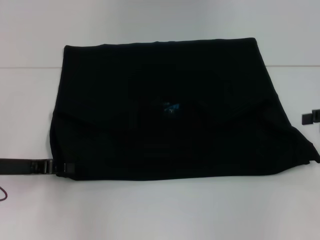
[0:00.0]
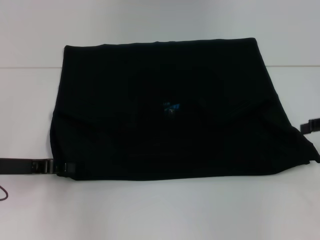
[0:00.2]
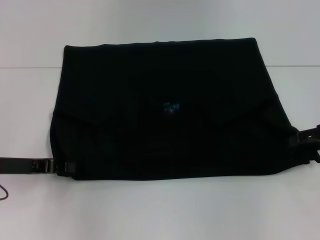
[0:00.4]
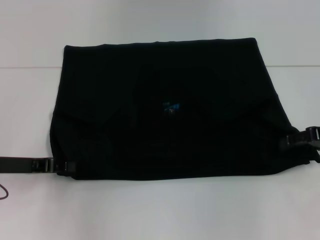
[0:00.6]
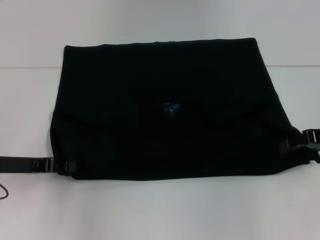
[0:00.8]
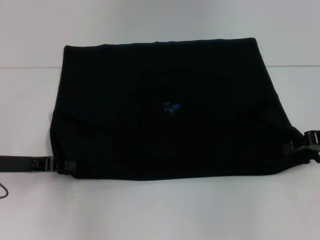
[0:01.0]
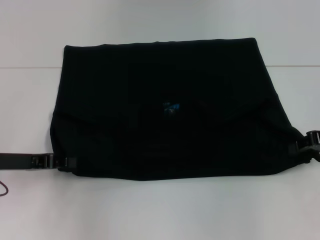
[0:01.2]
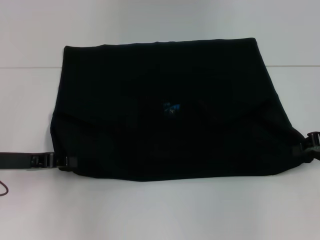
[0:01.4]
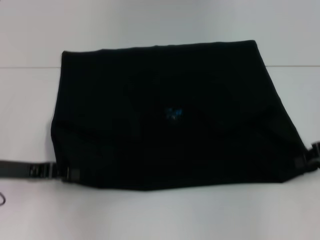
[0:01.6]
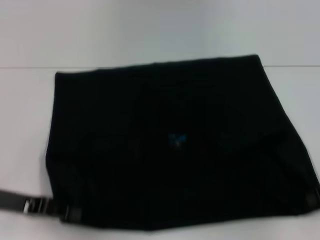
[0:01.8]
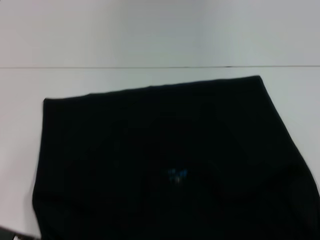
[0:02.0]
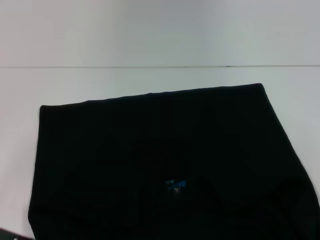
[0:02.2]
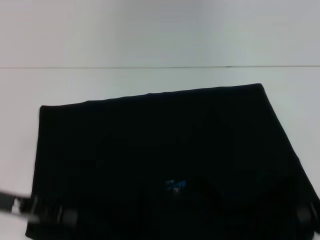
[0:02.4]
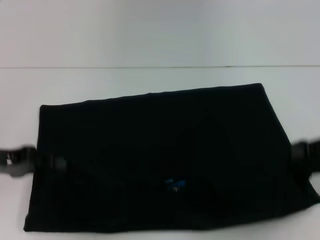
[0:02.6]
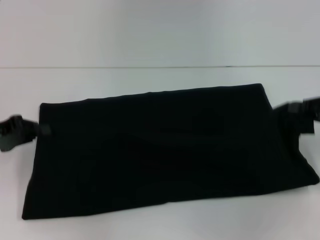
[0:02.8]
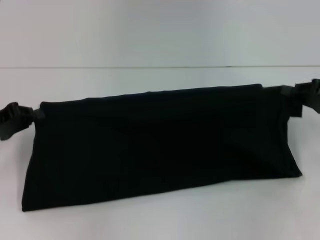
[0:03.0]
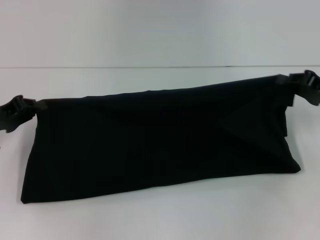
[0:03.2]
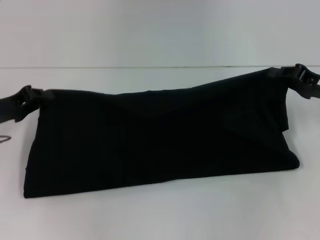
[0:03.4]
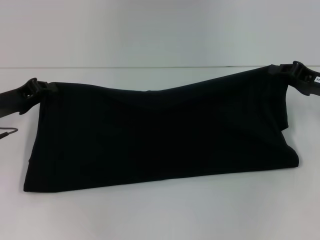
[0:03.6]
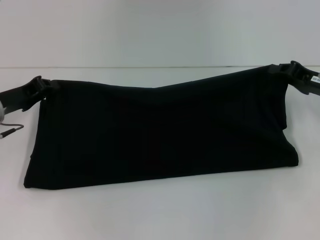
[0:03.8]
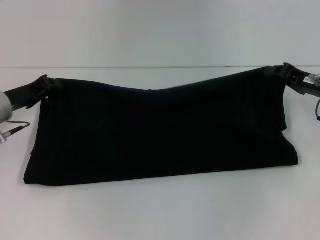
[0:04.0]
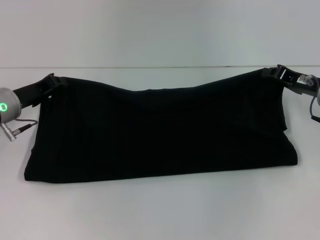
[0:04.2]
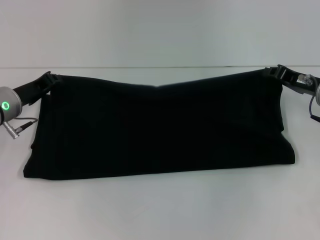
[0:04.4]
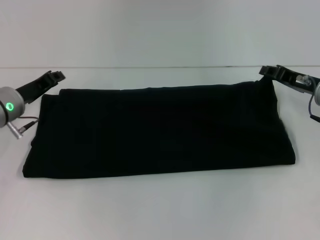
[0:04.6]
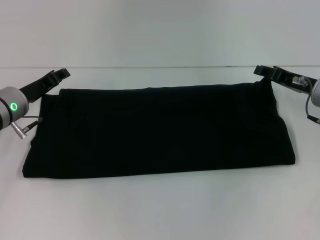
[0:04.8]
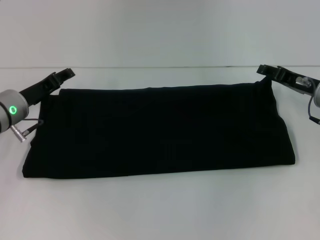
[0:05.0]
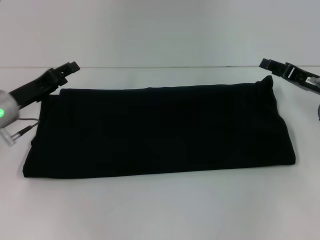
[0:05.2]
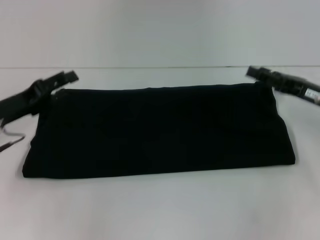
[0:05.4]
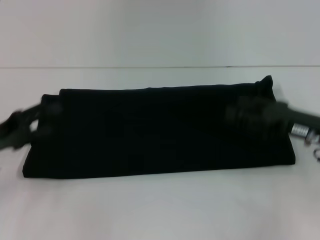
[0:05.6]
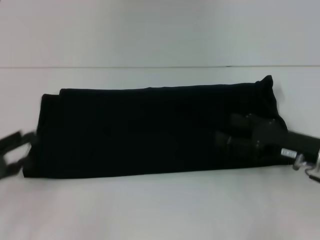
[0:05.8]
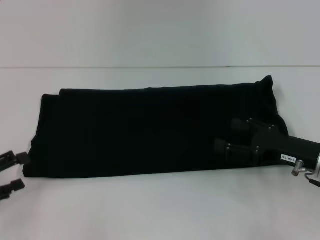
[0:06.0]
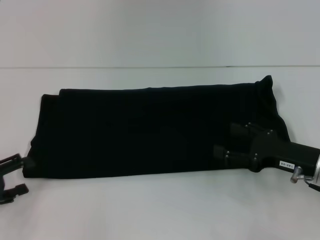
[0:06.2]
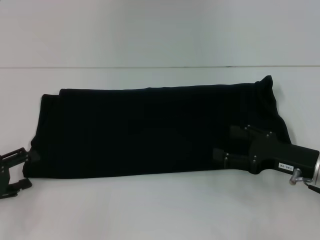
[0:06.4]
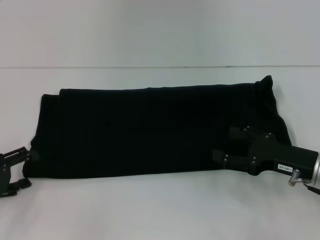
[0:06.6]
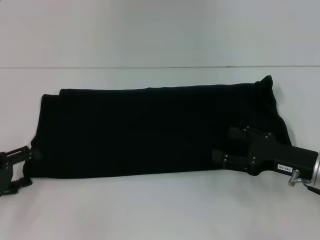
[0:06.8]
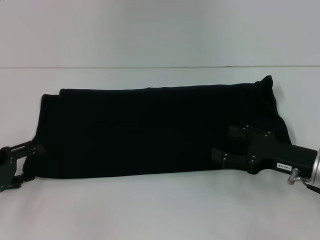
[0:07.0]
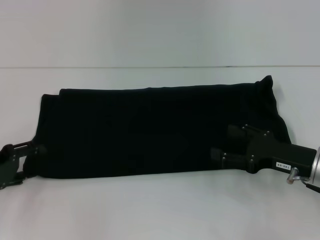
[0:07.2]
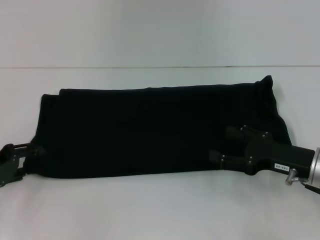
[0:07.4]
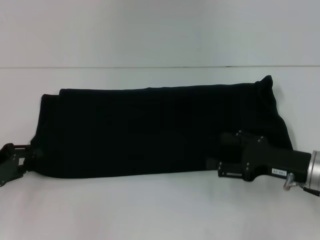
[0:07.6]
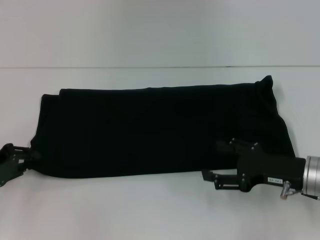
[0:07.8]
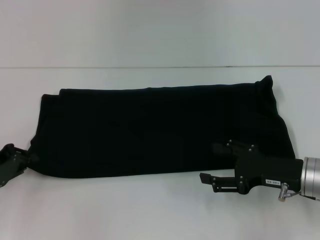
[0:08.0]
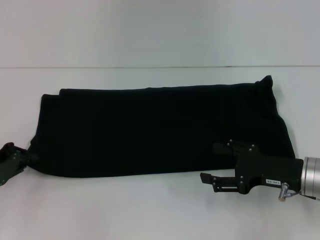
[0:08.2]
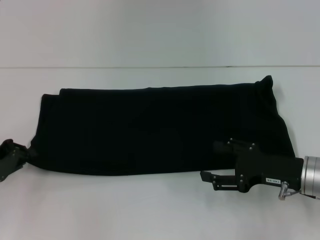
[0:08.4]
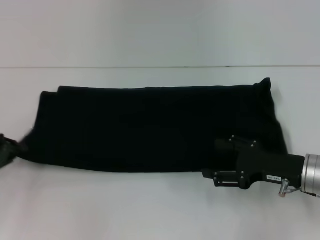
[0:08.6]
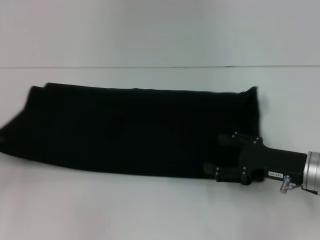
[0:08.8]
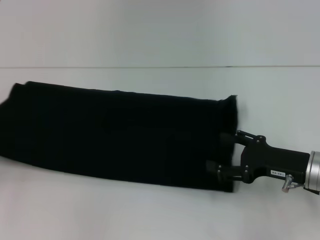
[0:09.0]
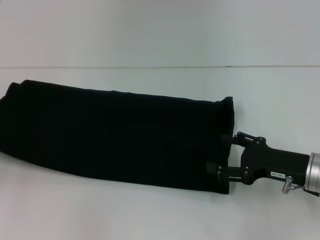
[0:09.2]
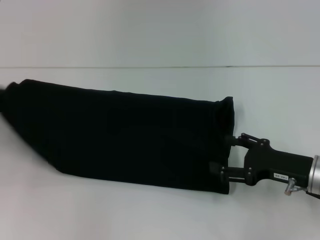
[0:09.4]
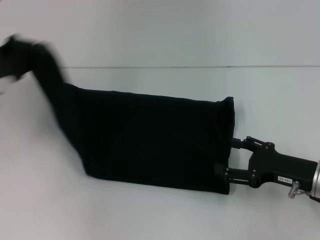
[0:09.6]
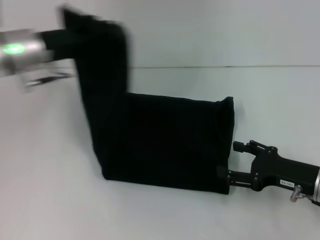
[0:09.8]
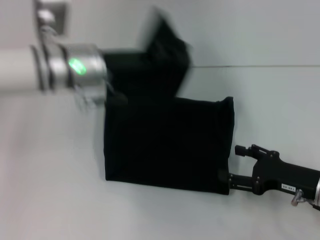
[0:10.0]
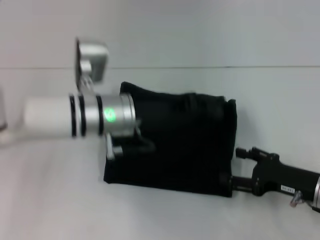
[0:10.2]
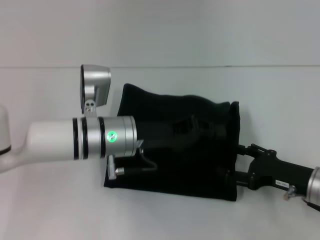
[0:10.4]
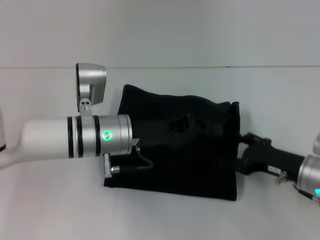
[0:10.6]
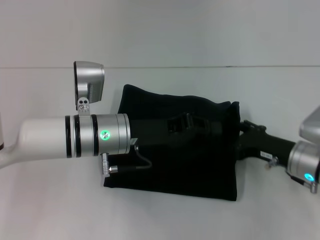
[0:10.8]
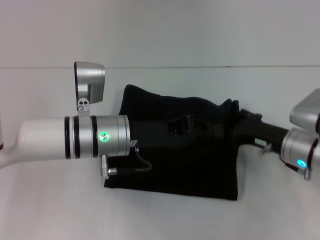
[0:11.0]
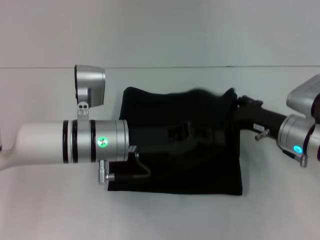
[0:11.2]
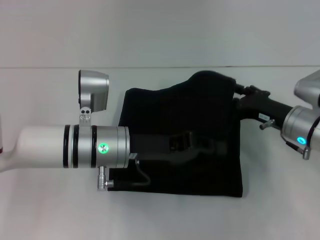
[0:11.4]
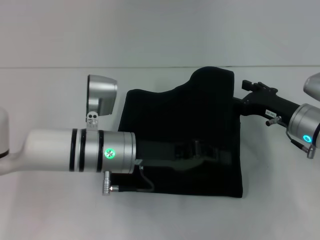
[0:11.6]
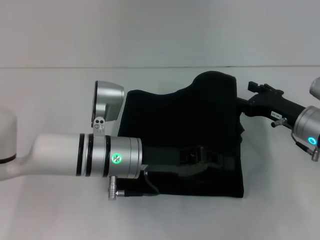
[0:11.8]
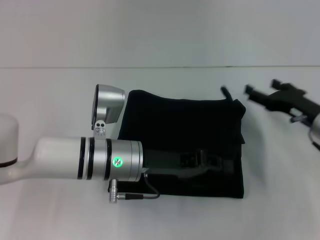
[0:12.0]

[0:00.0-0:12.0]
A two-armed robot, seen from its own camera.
Step, 0:00.0 to 0:02.0: Pull the clothes with your left hand.
Step, 0:00.0 to 0:02.0: Pull the clothes with your right hand.
Step, 0:02.2 to 0:04.8: Fold the clothes with your right hand.
0:00.0 to 0:01.6: The right gripper closes.
0:01.6 to 0:03.0: The right gripper goes backward and returns, about 10 cm each way. Meanwhile the left gripper reaches about 5 cm backward, then returns.
0:03.0 to 0:04.4: The left gripper shifts about 10 cm to the right and forward, while the right gripper shifts about 5 cm to the left.
0:04.4 to 0:06.0: The right gripper shifts about 10 cm backward, and opens up. Meanwhile the left gripper shifts roughly 20 cm backward and to the left, and opens.
0:06.0 to 0:07.6: The left gripper shifts some 5 cm forward, and closes.
0:07.6 to 0:09.0: The left gripper shifts about 5 cm to the left, and closes up.
0:09.0 to 0:10.4: The left gripper moves to the right, some 30 cm.
0:10.4 to 0:12.0: The right gripper shifts approximately 5 cm forward.

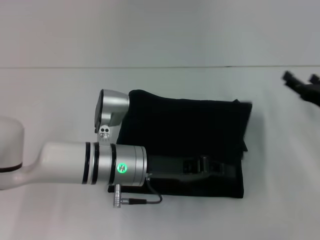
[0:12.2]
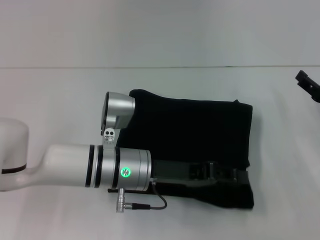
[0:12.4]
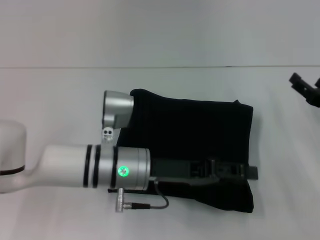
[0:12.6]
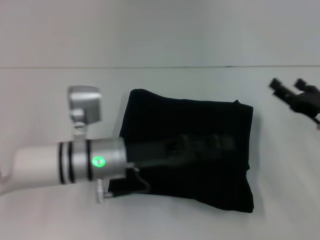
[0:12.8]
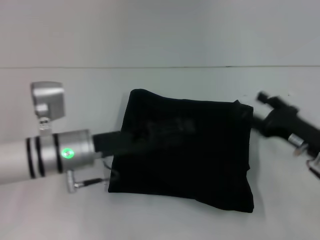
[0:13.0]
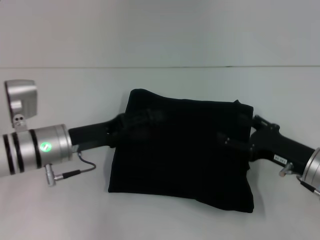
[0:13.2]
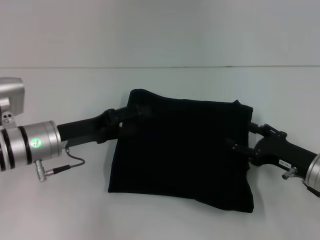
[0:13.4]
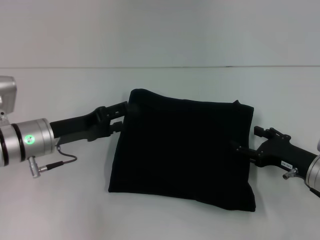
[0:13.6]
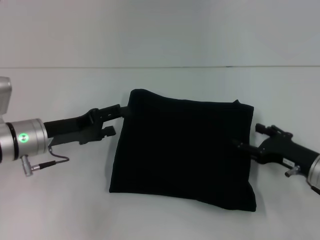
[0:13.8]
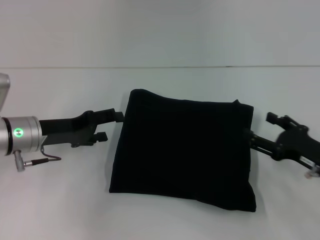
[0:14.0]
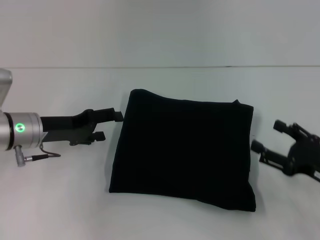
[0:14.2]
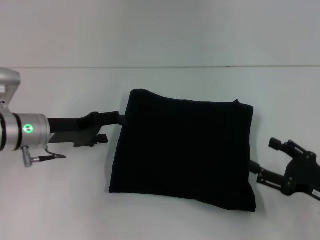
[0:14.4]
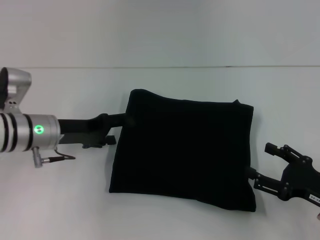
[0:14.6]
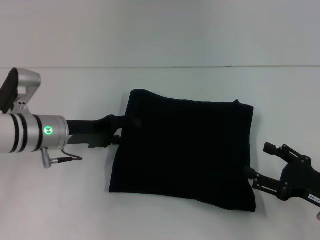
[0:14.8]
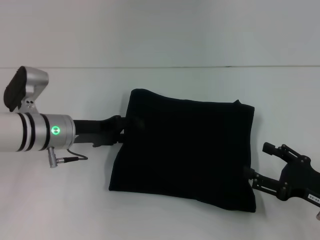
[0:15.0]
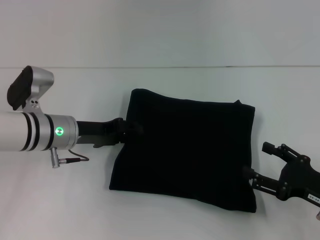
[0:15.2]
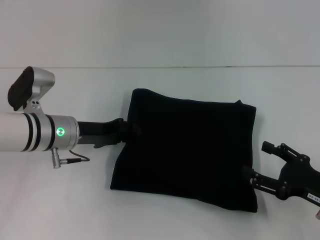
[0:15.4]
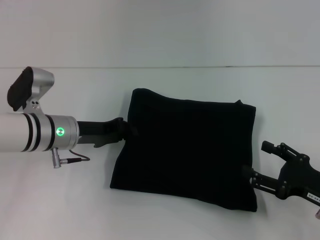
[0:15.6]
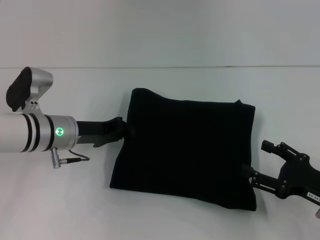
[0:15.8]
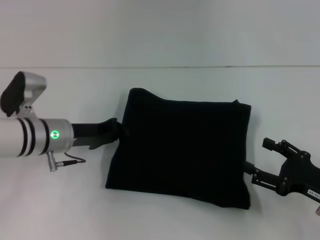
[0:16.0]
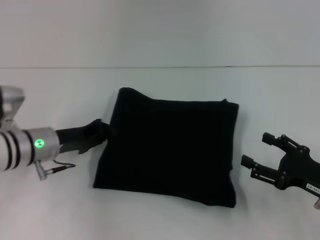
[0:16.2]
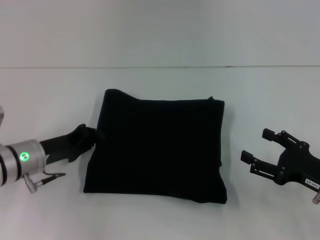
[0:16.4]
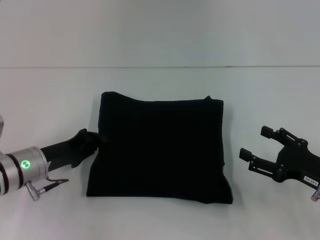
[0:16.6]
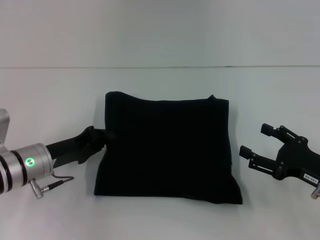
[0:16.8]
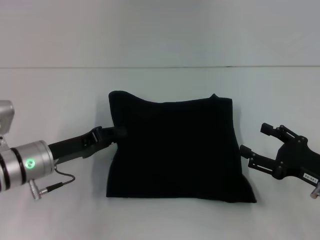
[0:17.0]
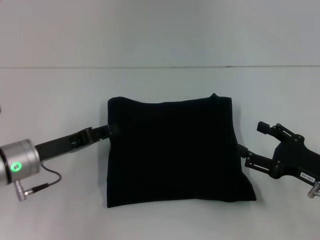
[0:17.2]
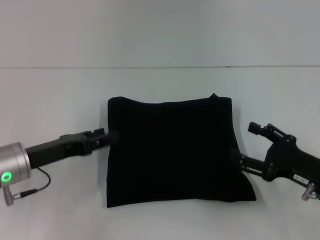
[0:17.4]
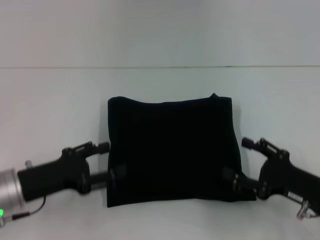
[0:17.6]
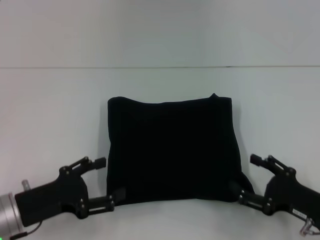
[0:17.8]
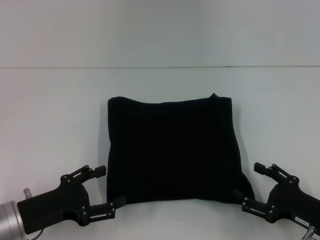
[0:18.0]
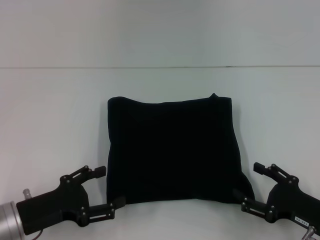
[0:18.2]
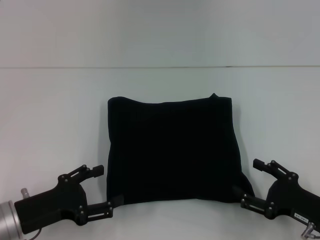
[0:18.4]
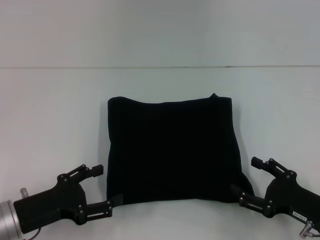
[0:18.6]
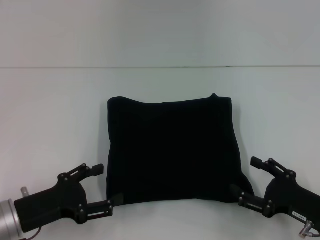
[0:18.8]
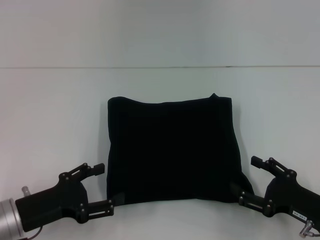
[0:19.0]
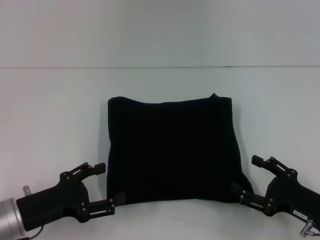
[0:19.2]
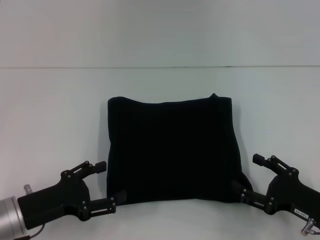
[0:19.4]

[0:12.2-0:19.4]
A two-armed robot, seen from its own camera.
0:12.2 to 0:13.6: The right gripper ends up roughly 5 cm from where it was. The left gripper is displaced to the left by approximately 15 cm, and opens up.
0:13.6 to 0:15.0: The right gripper travels backward by approximately 5 cm.
0:15.0 to 0:16.6: The left gripper goes some 5 cm backward, and closes its fingers.
0:16.6 to 0:18.0: The right gripper shifts by approximately 5 cm; the left gripper heads backward, covering some 10 cm, and opens its fingers.
0:18.0 to 0:19.4: The two grippers keep their place.
